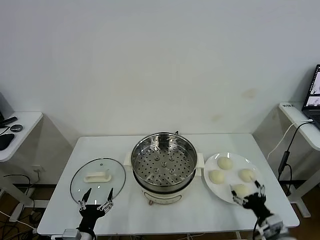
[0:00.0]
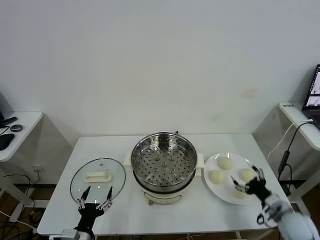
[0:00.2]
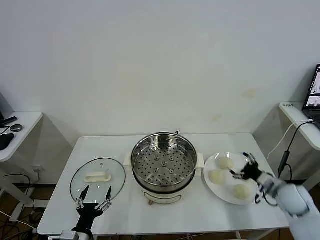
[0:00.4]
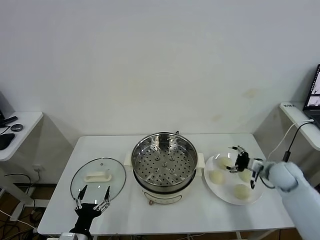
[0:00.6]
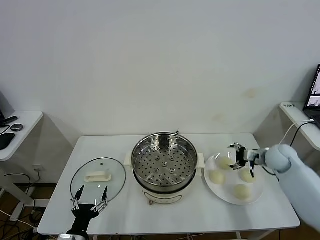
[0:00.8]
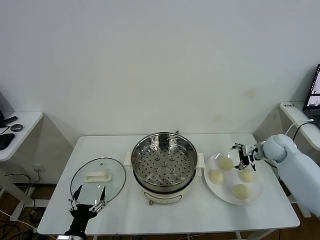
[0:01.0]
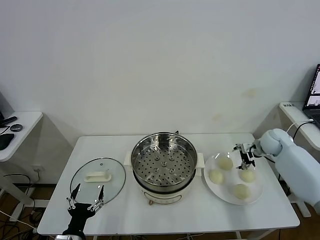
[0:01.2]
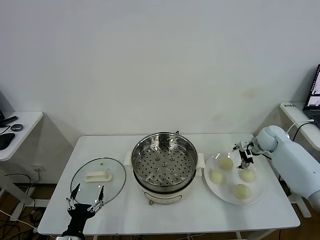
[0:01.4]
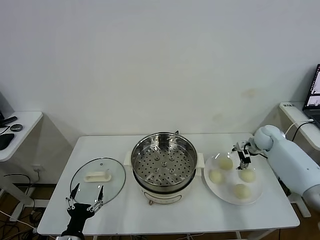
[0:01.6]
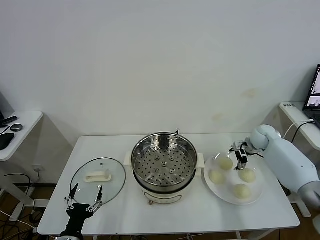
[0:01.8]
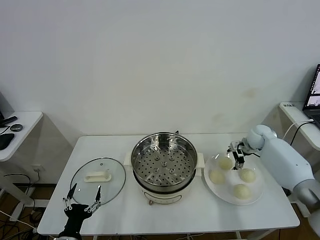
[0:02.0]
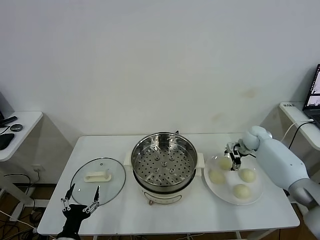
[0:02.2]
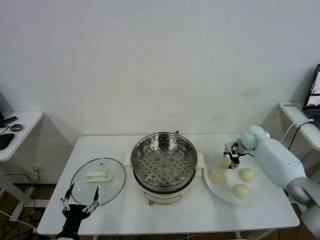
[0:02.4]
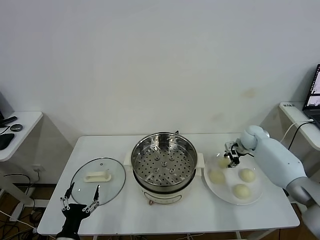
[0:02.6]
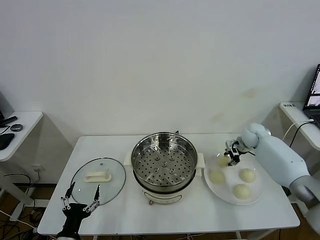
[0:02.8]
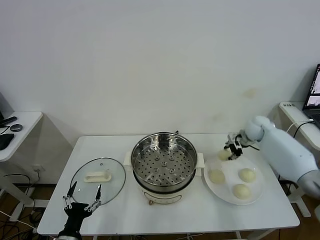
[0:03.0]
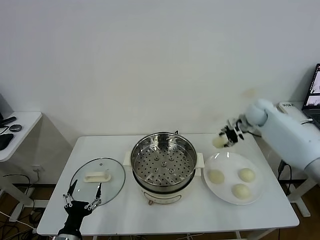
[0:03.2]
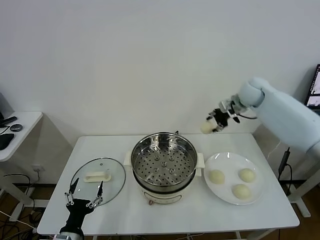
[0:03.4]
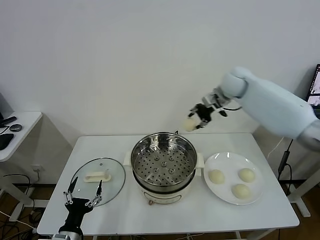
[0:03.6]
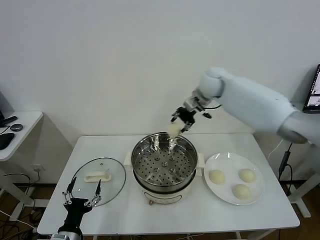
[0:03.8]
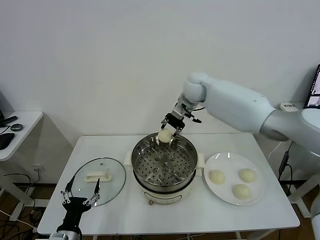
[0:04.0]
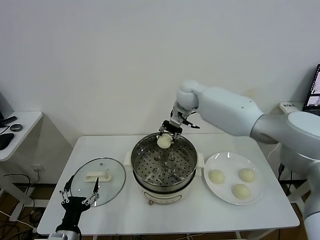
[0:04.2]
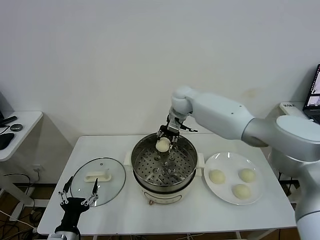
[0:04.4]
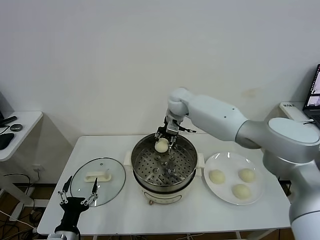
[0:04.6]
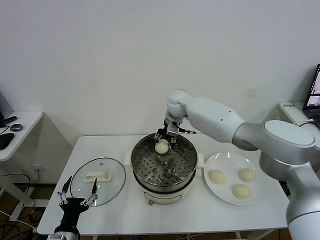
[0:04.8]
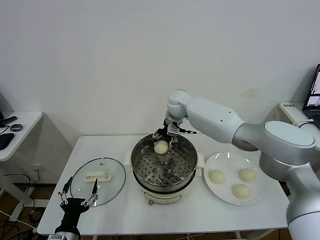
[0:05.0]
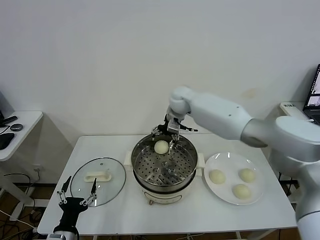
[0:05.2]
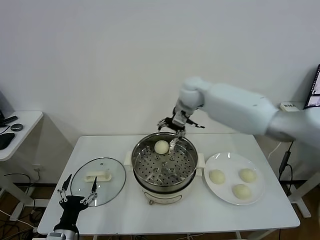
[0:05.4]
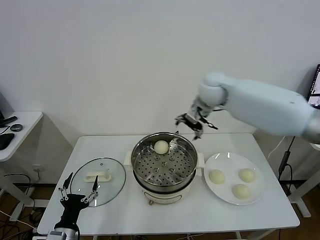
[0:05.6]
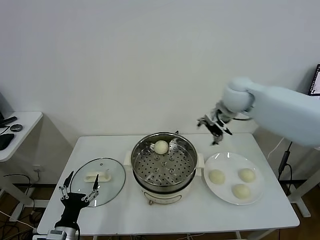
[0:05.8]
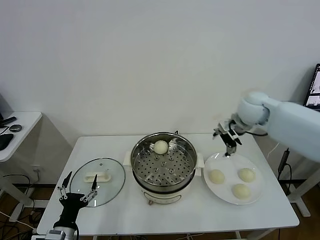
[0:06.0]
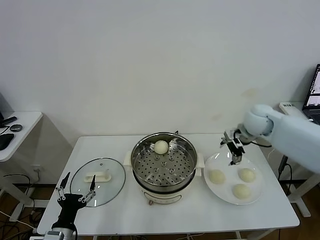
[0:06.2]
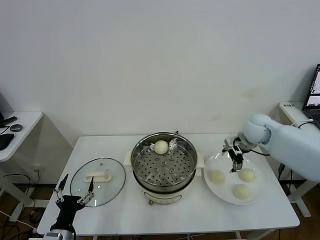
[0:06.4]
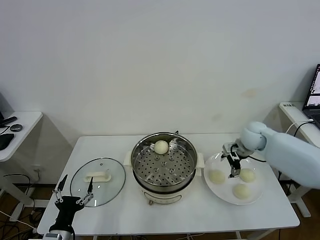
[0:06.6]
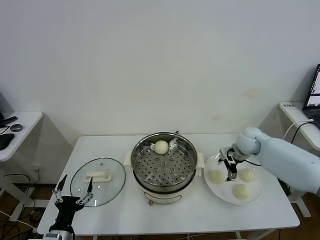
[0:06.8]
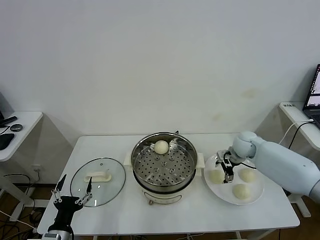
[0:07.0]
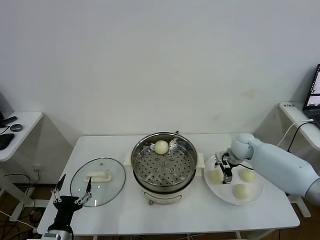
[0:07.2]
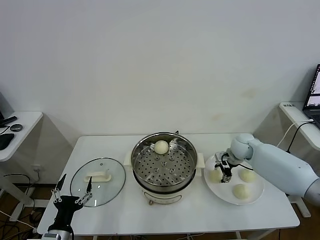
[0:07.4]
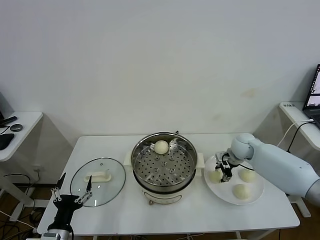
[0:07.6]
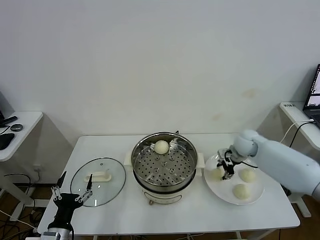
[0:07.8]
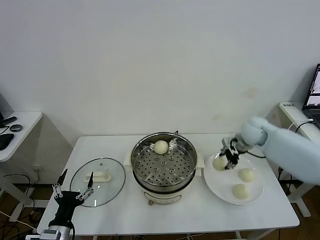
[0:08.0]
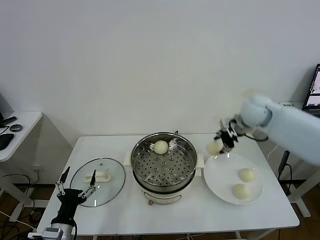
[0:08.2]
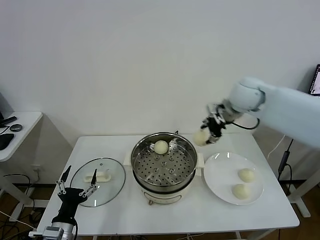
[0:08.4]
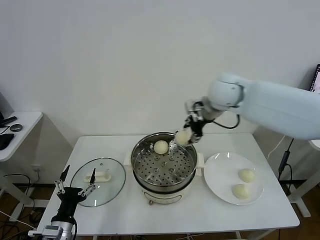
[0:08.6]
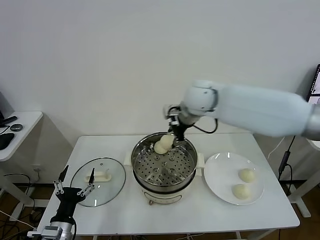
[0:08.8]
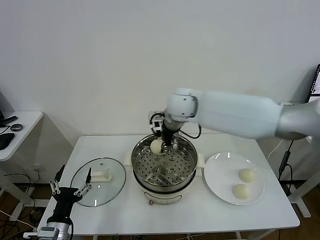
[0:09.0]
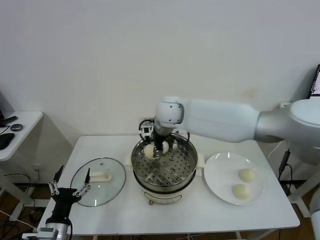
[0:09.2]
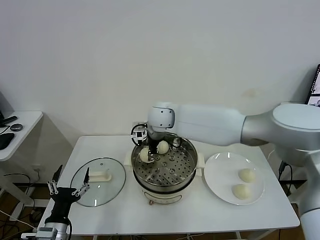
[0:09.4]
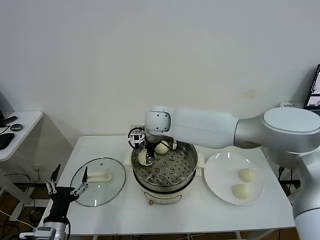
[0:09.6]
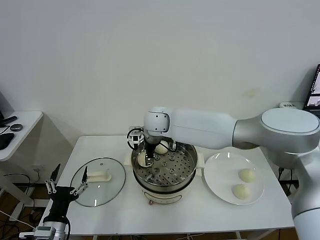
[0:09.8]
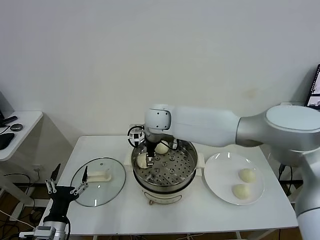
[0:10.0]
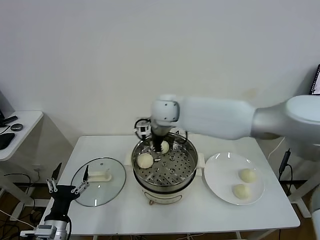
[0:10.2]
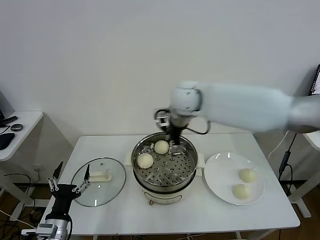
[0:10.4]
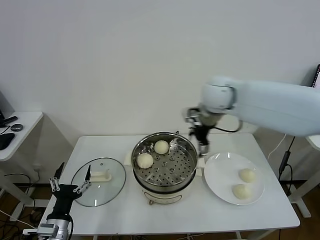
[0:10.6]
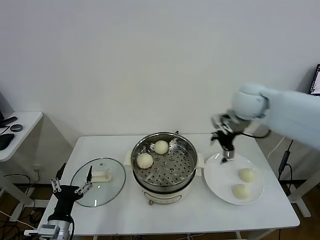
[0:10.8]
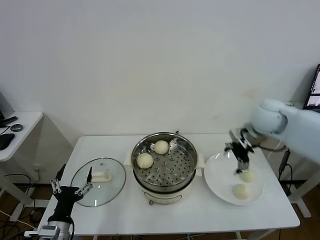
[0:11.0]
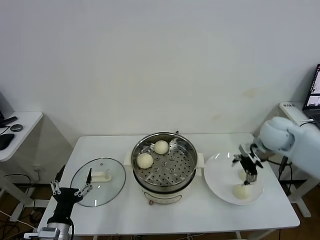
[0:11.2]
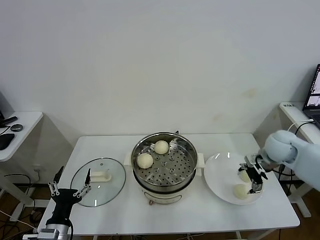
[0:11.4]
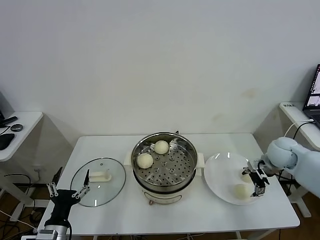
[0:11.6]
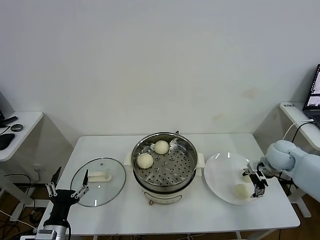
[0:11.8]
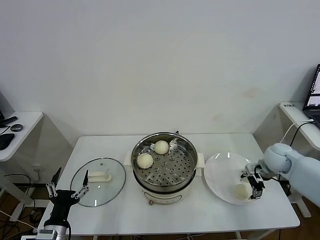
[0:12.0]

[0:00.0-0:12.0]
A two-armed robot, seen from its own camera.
Task of the whole recording: take steamed baozi put them in steamer.
Step, 0.0 to 2.4 s: Grasp the baozi in the plate with right gripper.
Step, 2.8 to 5.2 s: Place the baozi on the steamer with right gripper.
Step, 5.4 to 7.4 s: Grasp the baozi in the plate with right gripper.
Step, 7.8 to 10.0 s: Place the baozi on the steamer with right gripper.
1.6 to 3.0 s: The right gripper shifts by about 5 cm, and closes.
3.0 to 4.4 s: The right gripper is displaced to the left by approximately 30 cm.
4.4 to 6.0 s: The right gripper heads to the right and backward, covering approximately 25 cm, and opens.
6.0 to 7.6 s: The right gripper shifts approximately 20 cm downward, and closes its fingers.
7.6 to 9.0 s: The right gripper heads to the left and upward, covering some 35 cm.
9.0 to 10.4 s: The right gripper travels downward and back again, roughly 5 cm each way, and opens.
10.4 to 12.0 s: The right gripper goes some 40 cm to the right and downward.

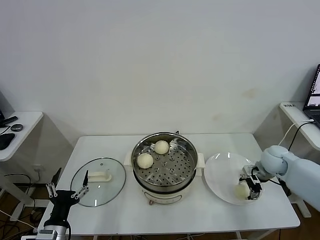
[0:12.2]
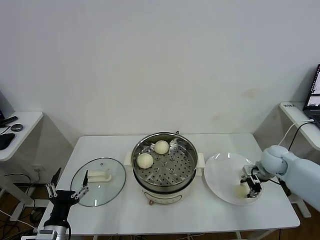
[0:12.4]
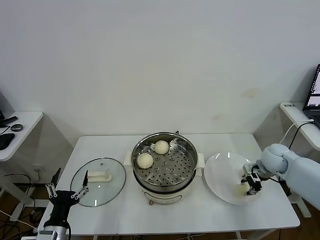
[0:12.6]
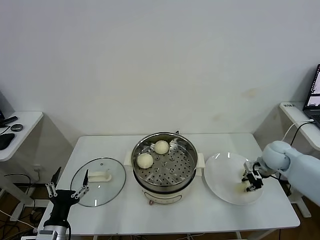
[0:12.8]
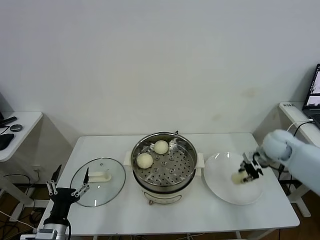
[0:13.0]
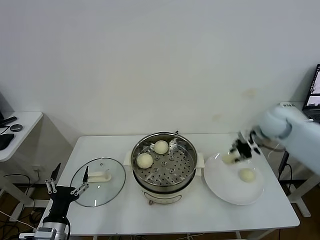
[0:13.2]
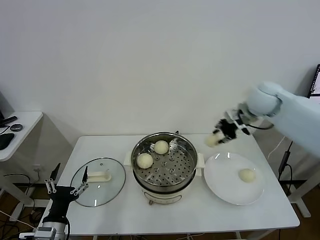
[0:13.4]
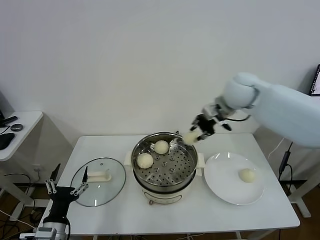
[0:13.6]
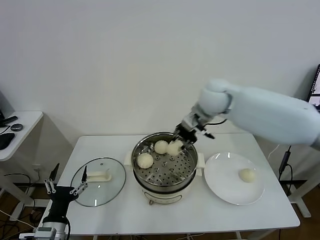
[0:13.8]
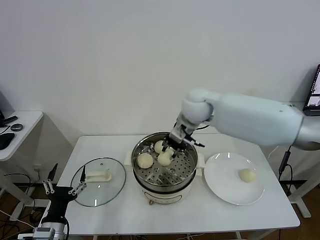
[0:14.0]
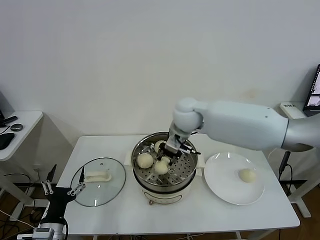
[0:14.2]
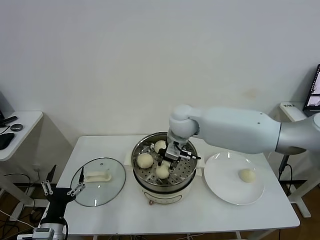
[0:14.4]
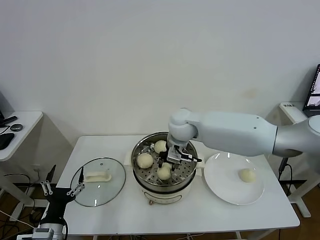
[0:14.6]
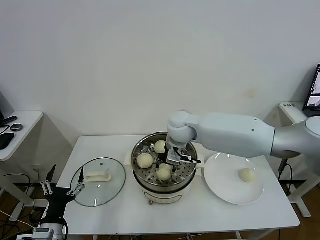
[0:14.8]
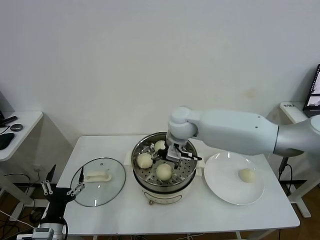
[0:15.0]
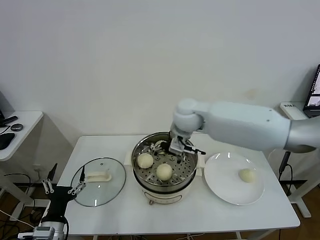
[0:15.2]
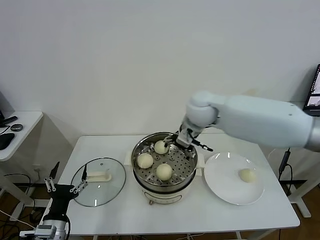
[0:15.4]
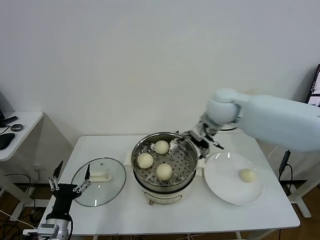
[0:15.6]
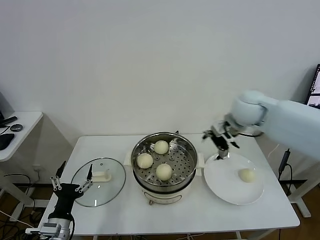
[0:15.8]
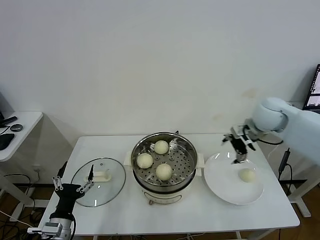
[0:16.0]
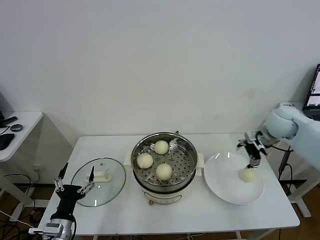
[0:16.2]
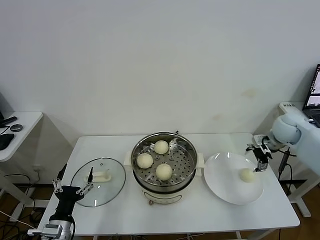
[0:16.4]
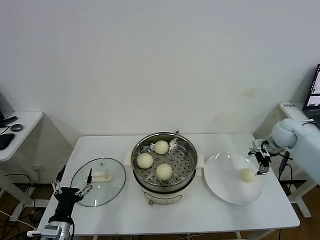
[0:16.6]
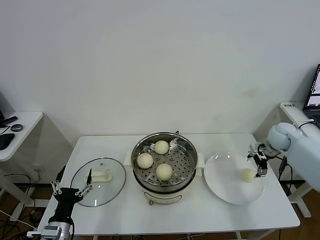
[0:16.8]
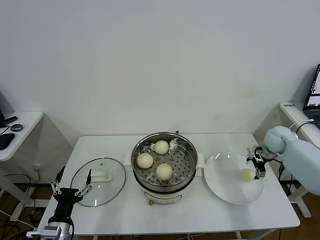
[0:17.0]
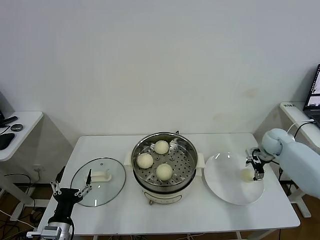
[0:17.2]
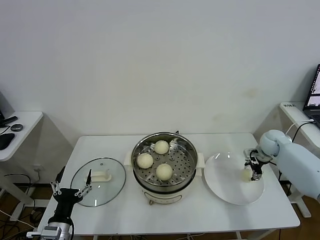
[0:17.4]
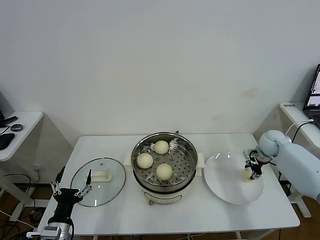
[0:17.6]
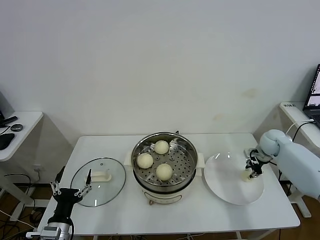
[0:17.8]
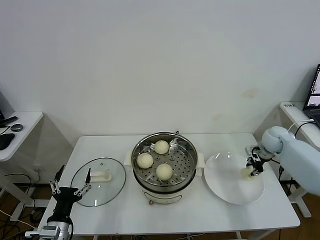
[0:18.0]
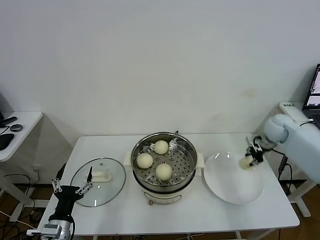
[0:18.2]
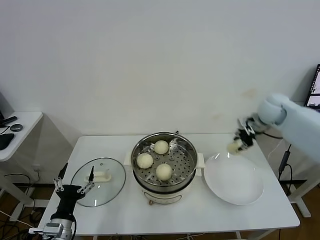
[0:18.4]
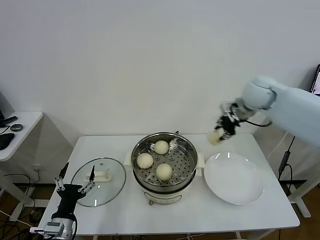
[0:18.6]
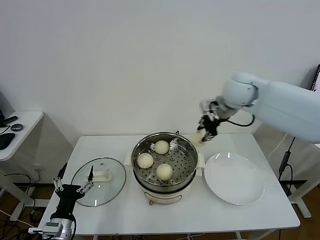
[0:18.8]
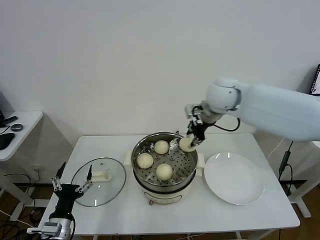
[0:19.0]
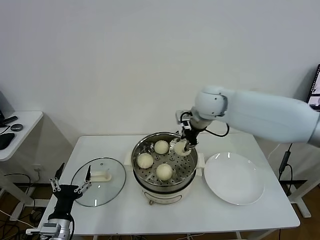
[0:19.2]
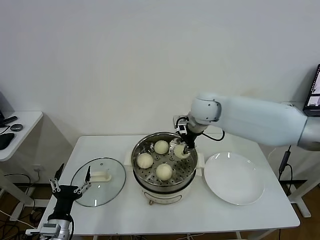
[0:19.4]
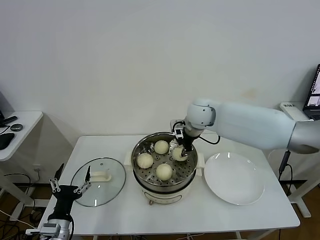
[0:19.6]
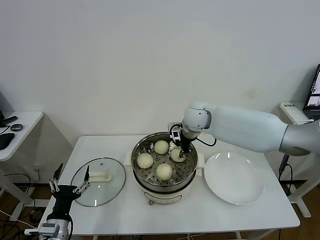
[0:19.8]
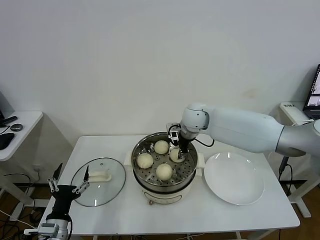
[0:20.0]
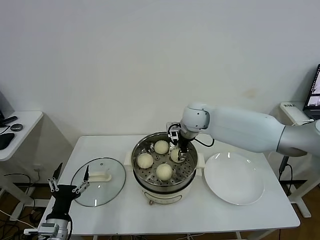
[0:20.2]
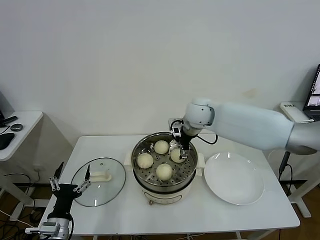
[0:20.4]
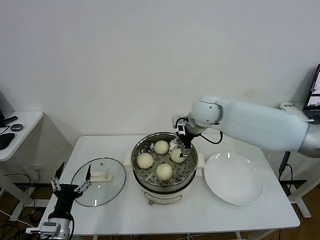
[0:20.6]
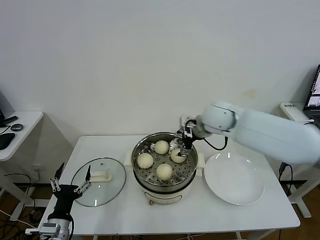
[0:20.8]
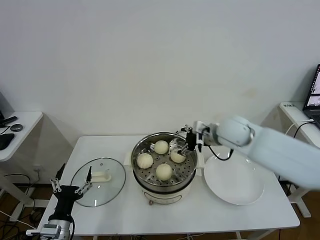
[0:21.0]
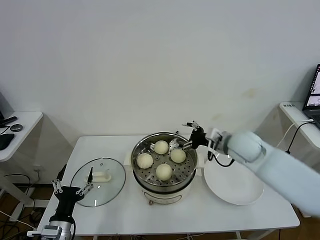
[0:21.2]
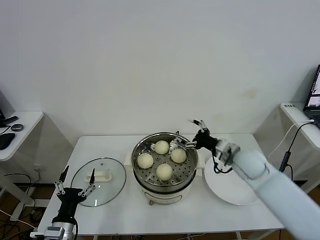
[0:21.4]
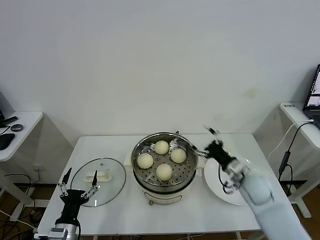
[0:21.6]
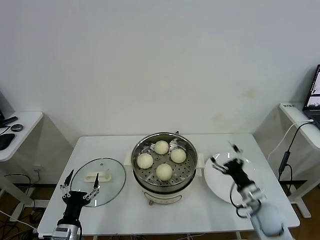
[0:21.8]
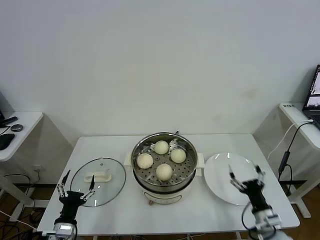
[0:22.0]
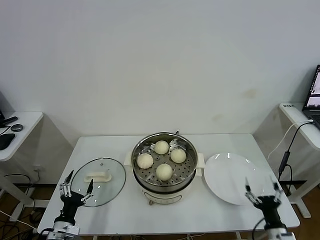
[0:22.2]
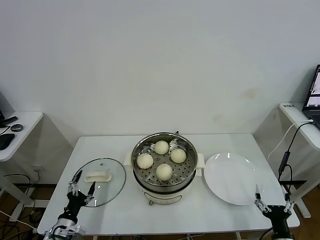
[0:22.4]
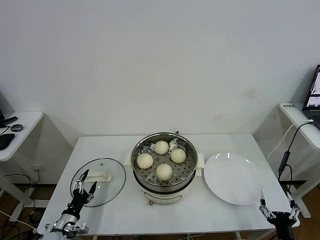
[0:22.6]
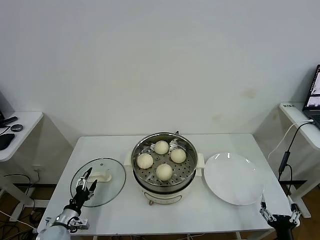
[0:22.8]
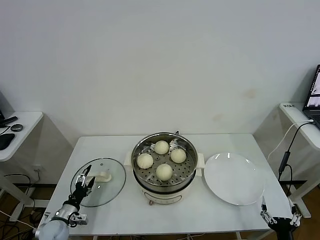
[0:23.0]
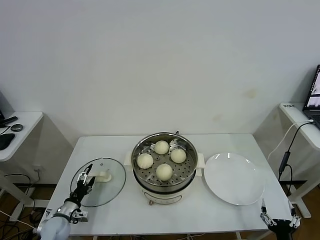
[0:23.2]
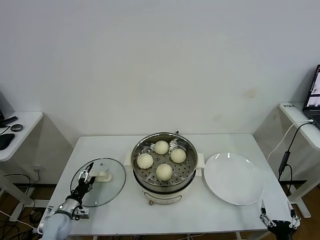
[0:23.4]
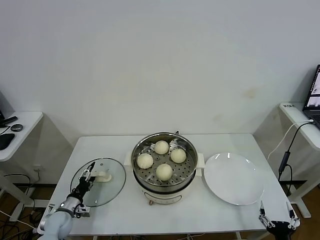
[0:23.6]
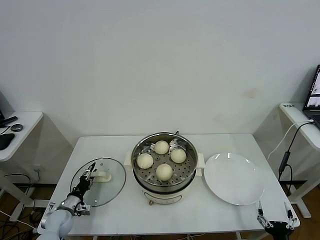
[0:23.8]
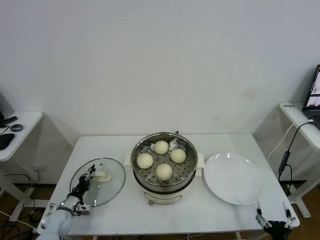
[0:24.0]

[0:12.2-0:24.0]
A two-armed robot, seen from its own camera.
Task of the whole recording: take steamed baozi put them in steamer.
Step, 12.6 to 15.0 s: Place the baozi on the steamer with right gripper.
Step, 15.2 to 17.6 s: Grasp the baozi in the plate with right gripper.
Step, 17.8 to 20.2 s: Place the baozi on the steamer with right gripper.
12.2 to 13.6 s: The right gripper moves upward and to the left, about 30 cm, and closes its fingers.
13.6 to 15.2 s: The right gripper travels to the left and downward by about 15 cm, and opens up.
15.2 to 16.6 s: The right gripper is displaced to the right by some 35 cm.
16.6 to 18.2 s: The right gripper travels downward and back again, approximately 10 cm each way, and closes up.
18.2 to 19.6 s: The right gripper is displaced to the left by approximately 30 cm.
19.6 to 21.0 s: The right gripper is displaced to the right and backward by some 10 cm, and opens up.
21.0 to 22.6 s: The left gripper shifts approximately 10 cm downward and to the left, while the right gripper travels backward, downward and to the right by roughly 50 cm.
22.6 to 24.0 s: The left gripper shifts about 10 cm forward, and closes.
